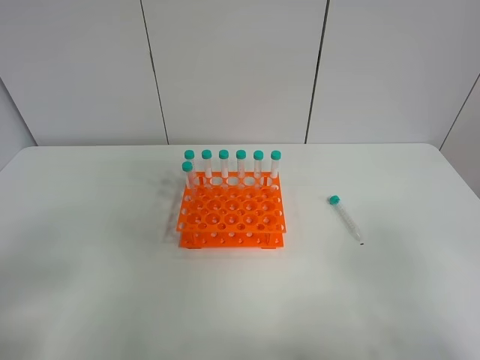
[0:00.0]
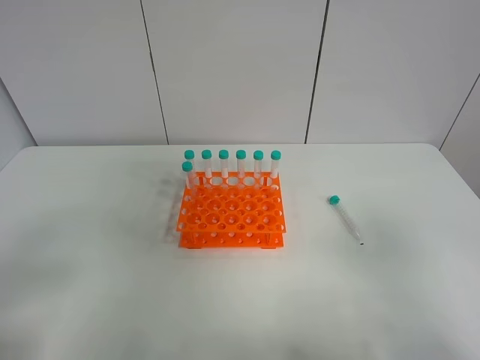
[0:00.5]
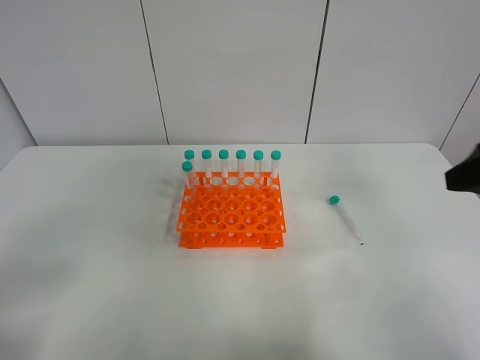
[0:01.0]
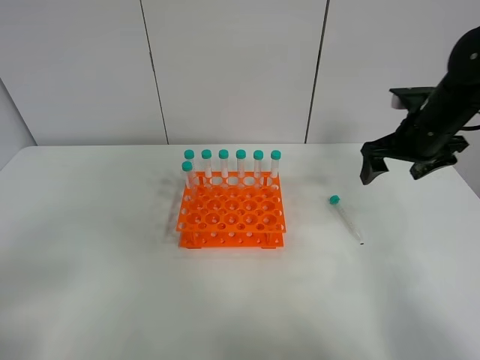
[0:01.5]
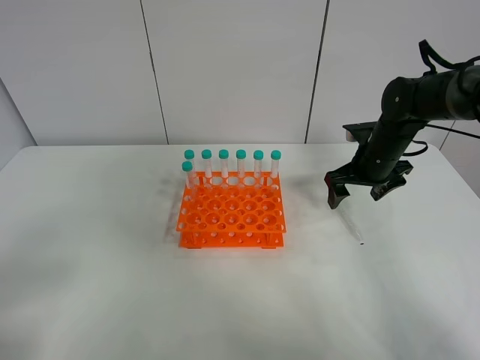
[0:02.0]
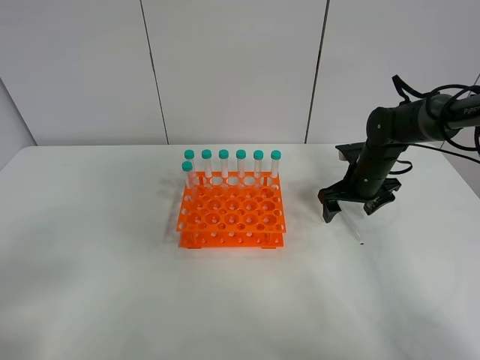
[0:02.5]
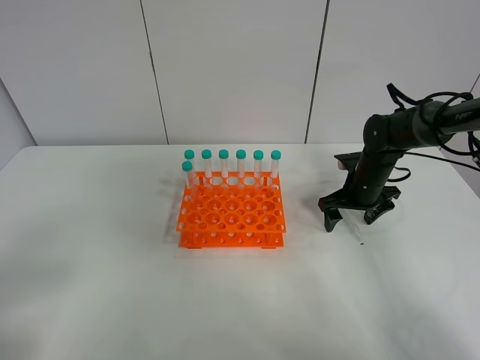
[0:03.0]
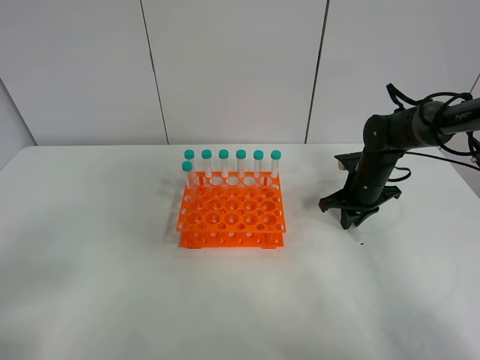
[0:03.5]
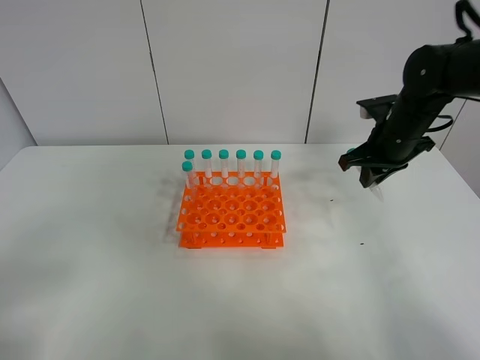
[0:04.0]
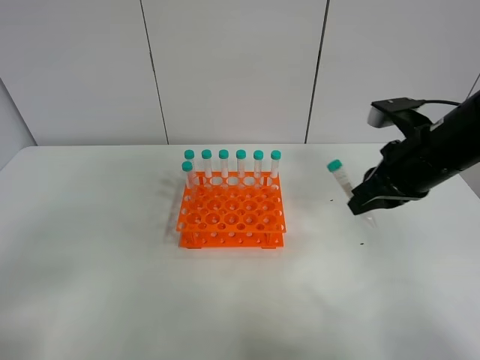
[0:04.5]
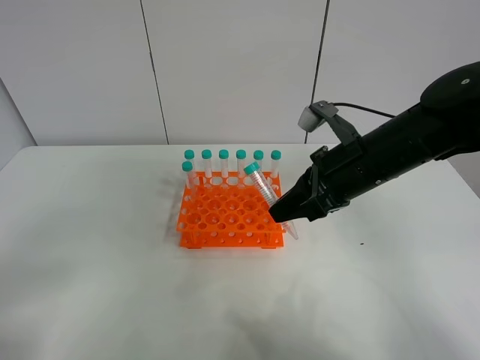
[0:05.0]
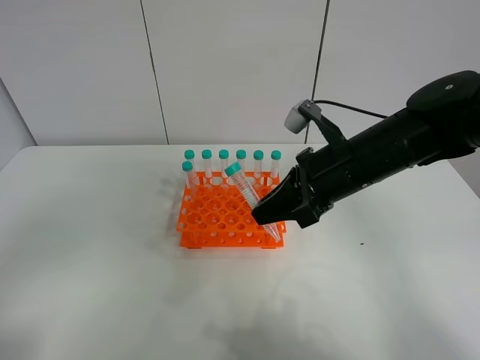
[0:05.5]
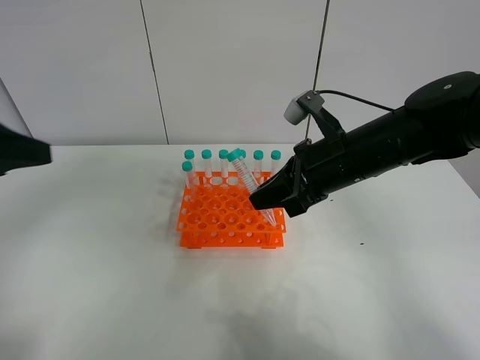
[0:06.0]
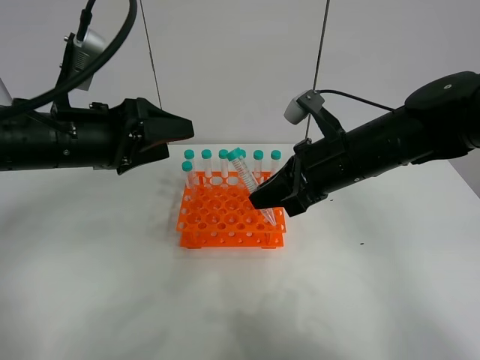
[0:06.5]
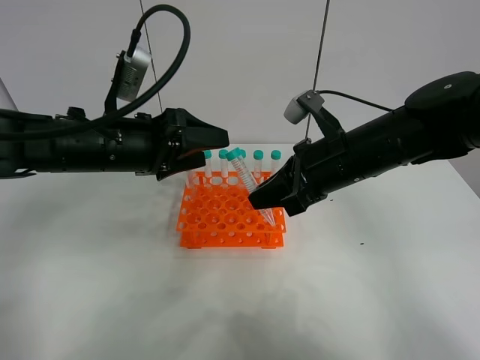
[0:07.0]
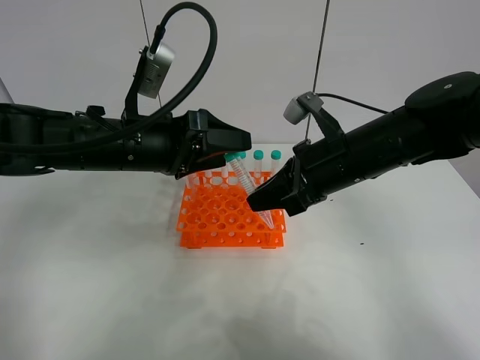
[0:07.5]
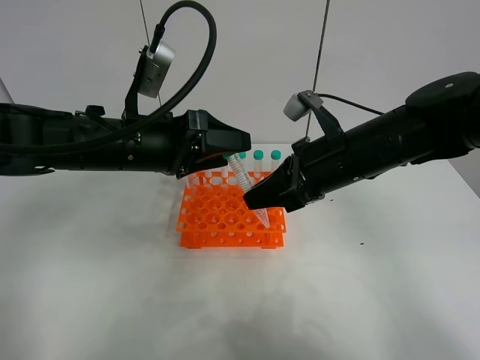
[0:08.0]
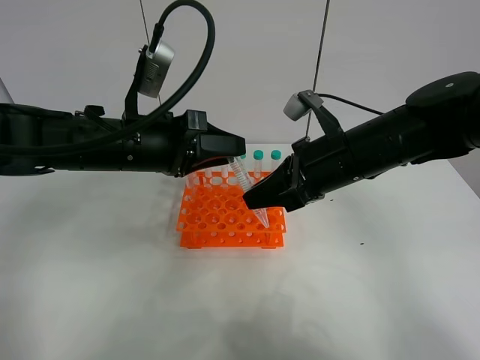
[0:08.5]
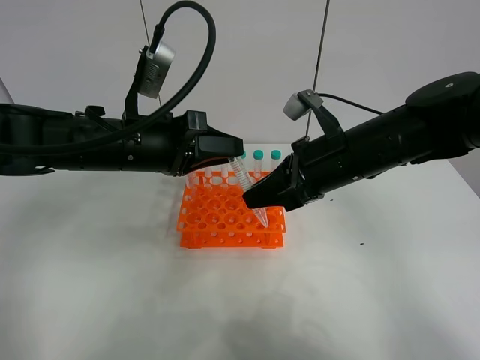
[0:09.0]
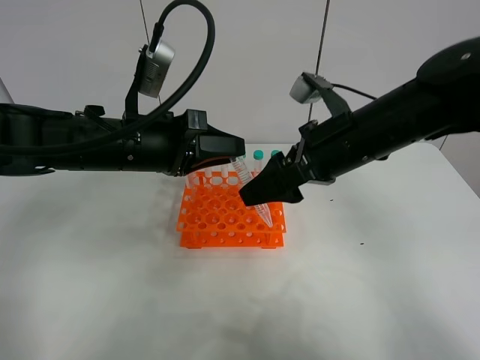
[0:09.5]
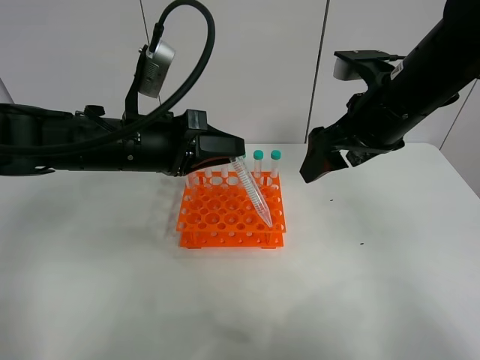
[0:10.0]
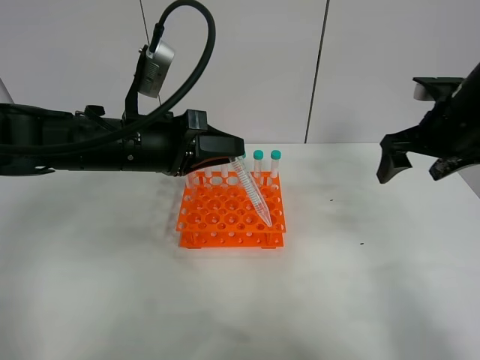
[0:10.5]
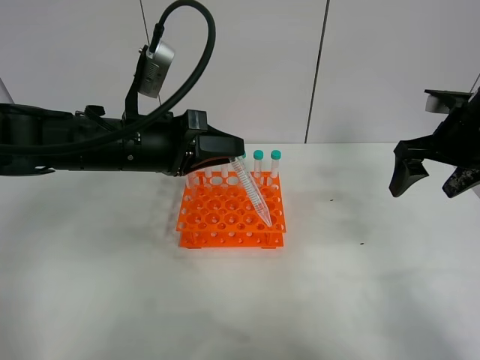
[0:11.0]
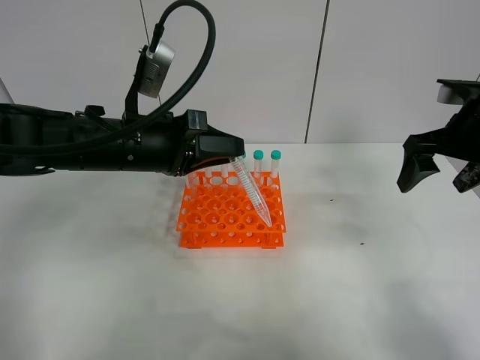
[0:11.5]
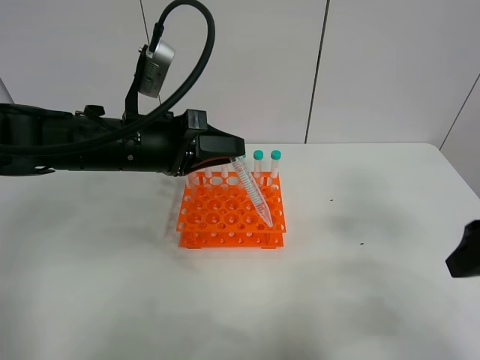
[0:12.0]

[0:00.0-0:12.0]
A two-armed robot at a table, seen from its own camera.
Task of the whole recording: Put the test tube on the table back onto the test tube rack.
Step, 0:00.0 to 0:03.0: Pick up the test tube with the right gripper.
Step, 0:03.5 to 0:09.0: Move the test tube from the right gripper to the left gripper.
0:00.0 to 0:02.0: The right gripper is displaced forward by approximately 40 cm.
0:02.0 to 0:04.0: The right gripper shifts approximately 5 cm upward, and closes.
0:04.0 to 0:06.0: The right gripper goes roughly 15 cm to the left and backward. The left gripper is displaced forward by some 15 cm.
0:06.0 to 0:08.0: The left gripper travels to the right, forward and downward by approximately 20 cm.
0:08.0 to 0:10.0: The right gripper goes about 5 cm upward, and opens up, while the left gripper closes up.
0:10.0 to 0:12.0: The right gripper heads backward and to the right, covering about 20 cm.

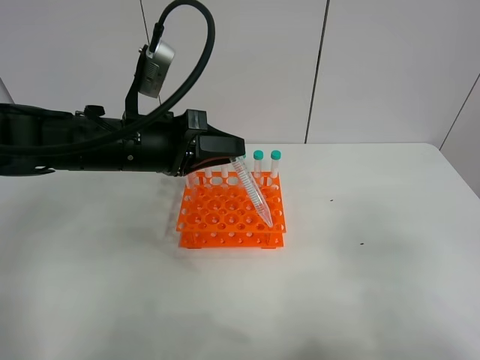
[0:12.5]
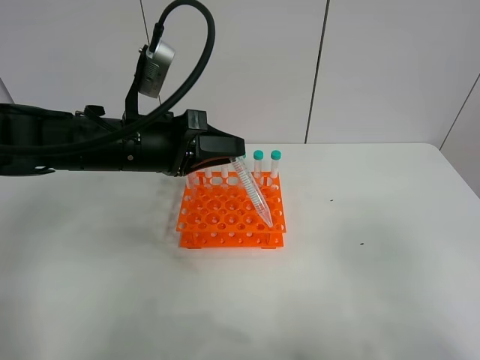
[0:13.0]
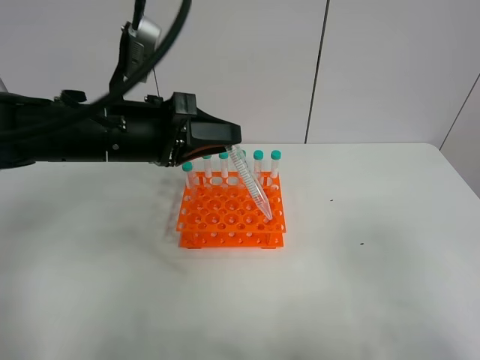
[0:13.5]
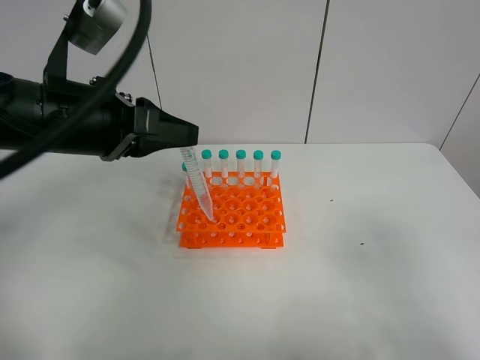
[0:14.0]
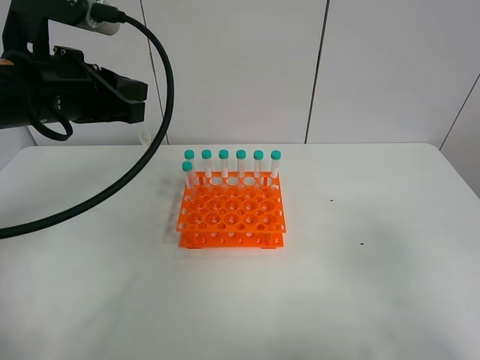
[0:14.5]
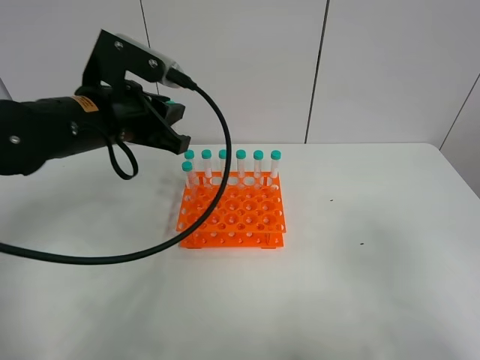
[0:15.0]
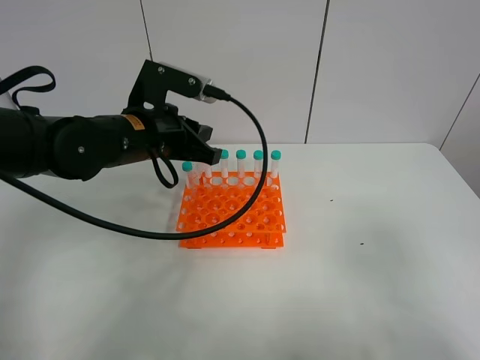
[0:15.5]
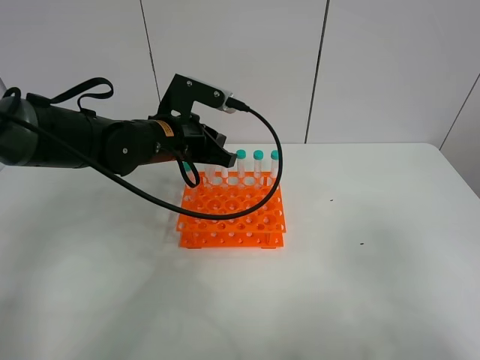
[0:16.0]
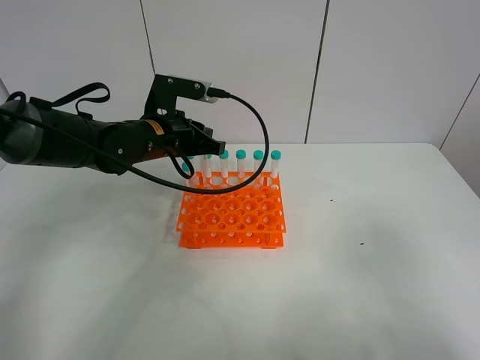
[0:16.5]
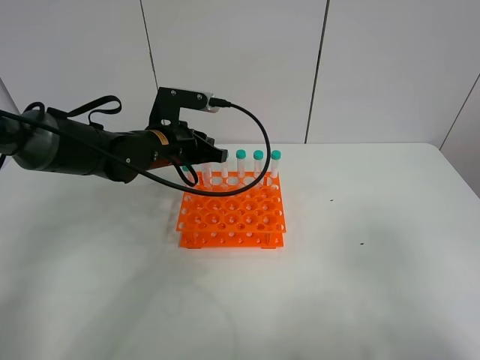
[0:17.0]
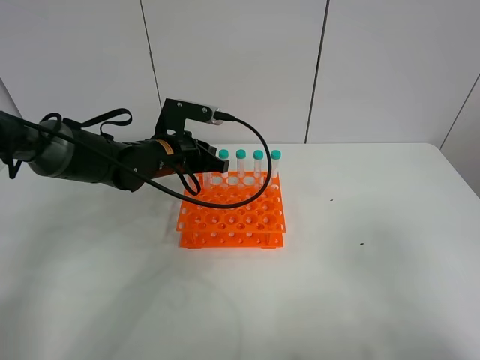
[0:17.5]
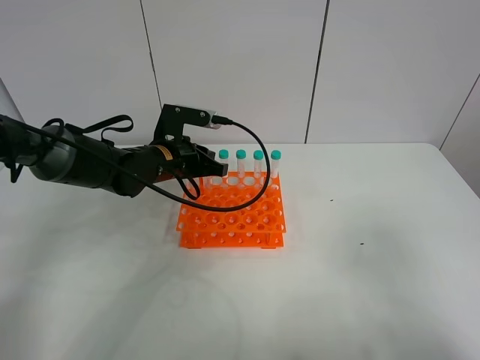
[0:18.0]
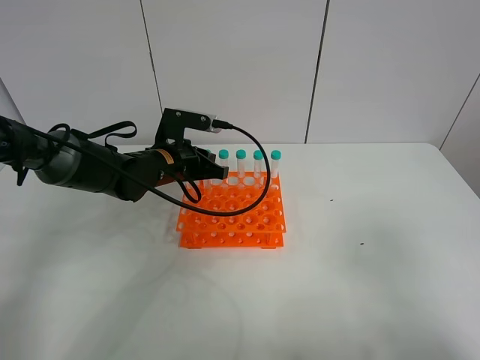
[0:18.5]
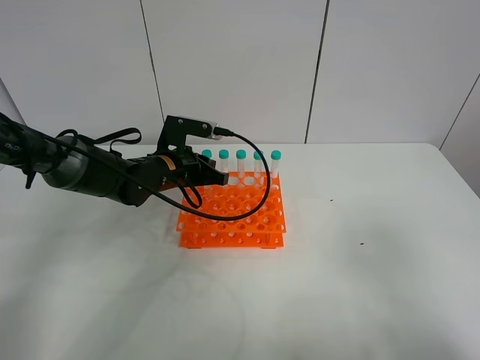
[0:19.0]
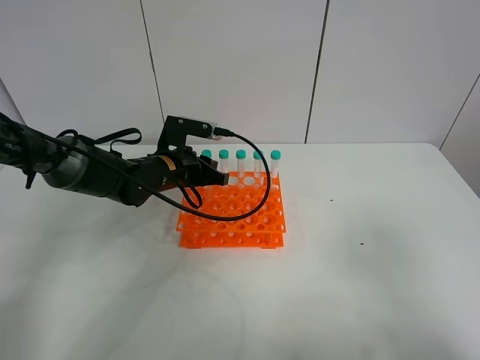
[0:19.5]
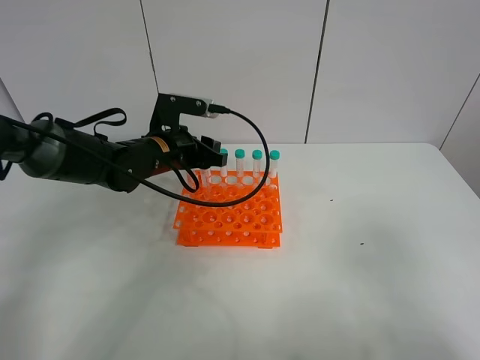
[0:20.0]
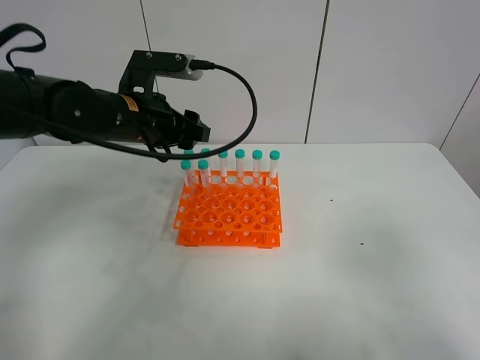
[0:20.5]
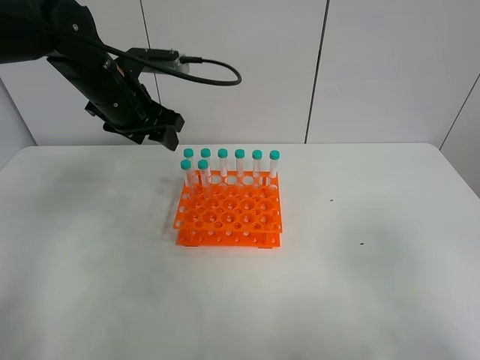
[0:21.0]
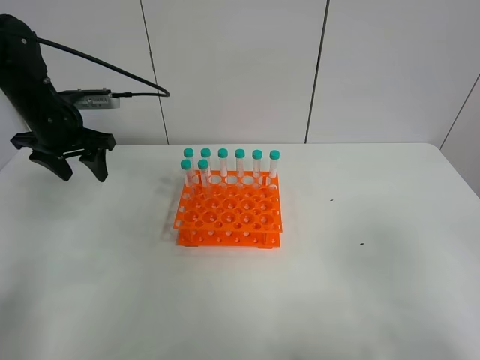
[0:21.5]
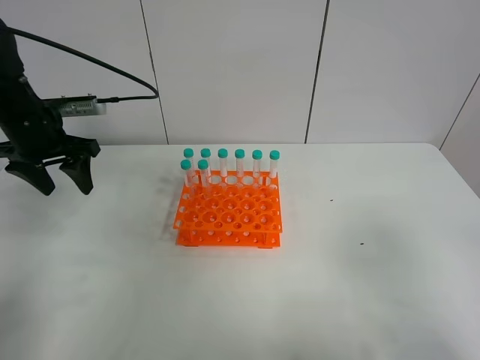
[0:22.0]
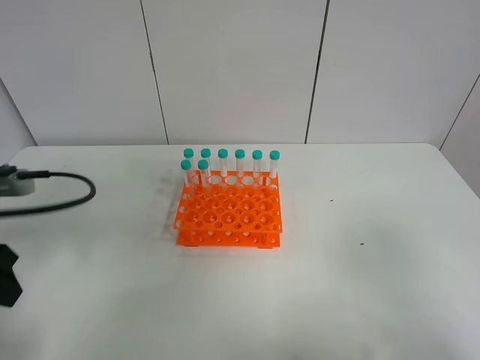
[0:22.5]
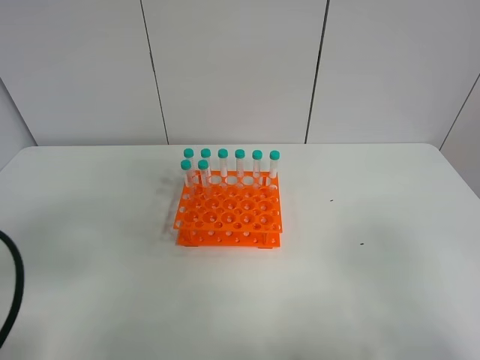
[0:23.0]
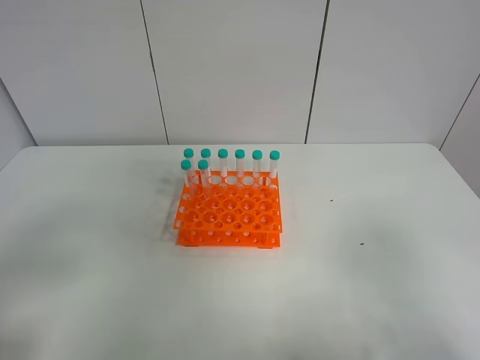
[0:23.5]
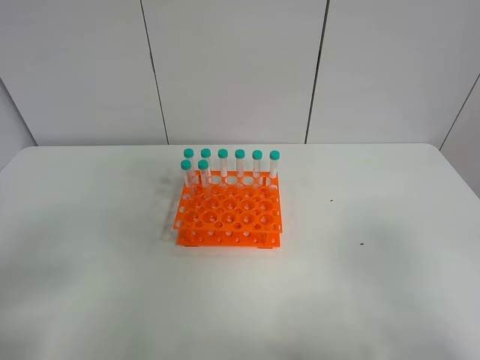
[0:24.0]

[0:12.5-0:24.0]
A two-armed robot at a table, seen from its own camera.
Task of the whole recording: Put the test tube on the table back onto the test tube rack.
Step, 0:12.5 to 0:19.5: Place the test tube on the test tube rack with the left gripper.
0:12.5 to 0:14.5: The left gripper goes some 10 cm upward and to the left.
0:14.5 to 0:16.5: The left gripper shifts approximately 20 cm downward, forward and to the right.
0:16.5 to 0:18.5: The left gripper heads downward, covering roughly 5 cm.
0:18.5 to 0:20.0: The left gripper opens.
0:20.0 to 0:22.0: The left gripper heads to the left, covering about 15 cm.
0:22.0 to 0:24.0: The left gripper travels backward by some 35 cm.

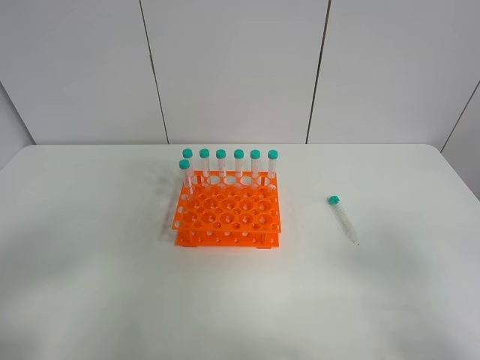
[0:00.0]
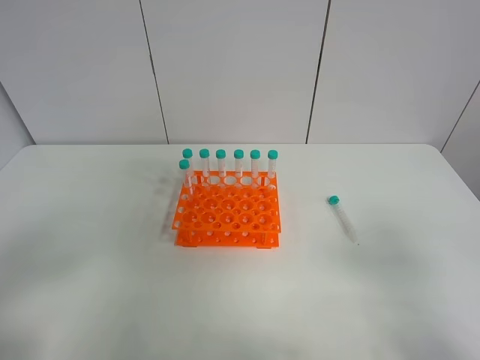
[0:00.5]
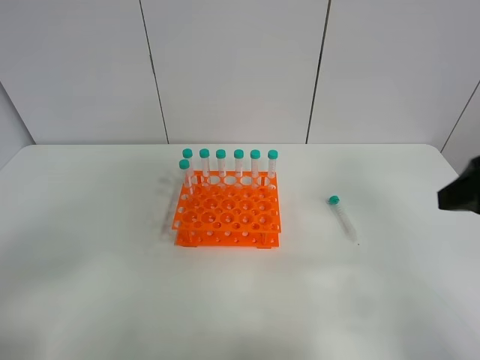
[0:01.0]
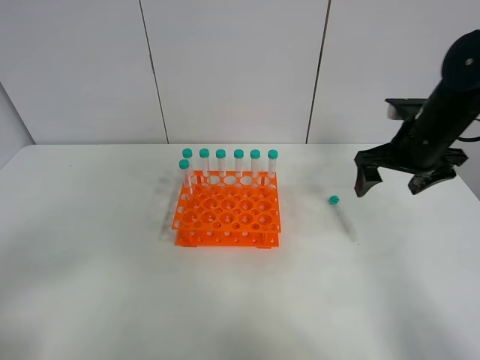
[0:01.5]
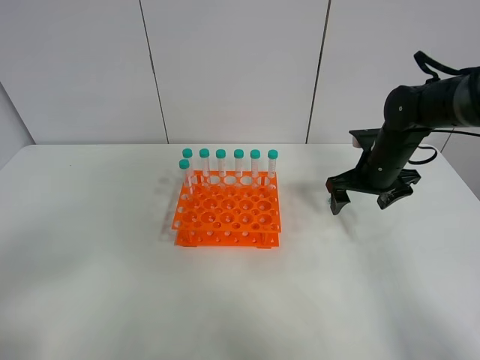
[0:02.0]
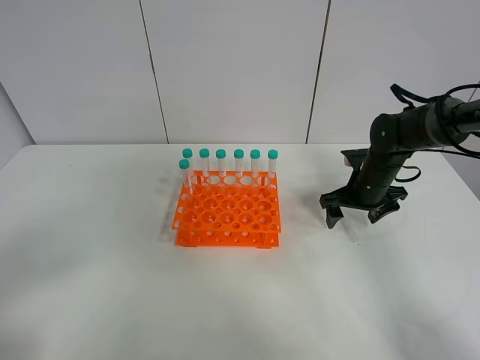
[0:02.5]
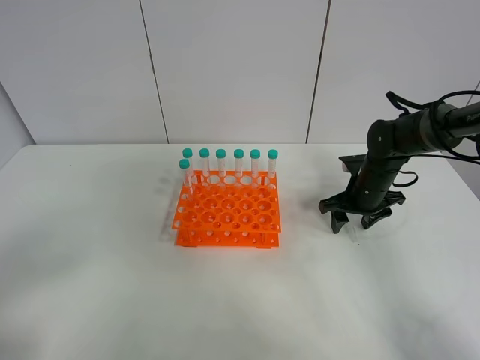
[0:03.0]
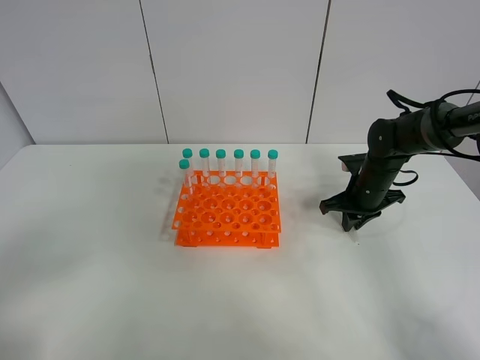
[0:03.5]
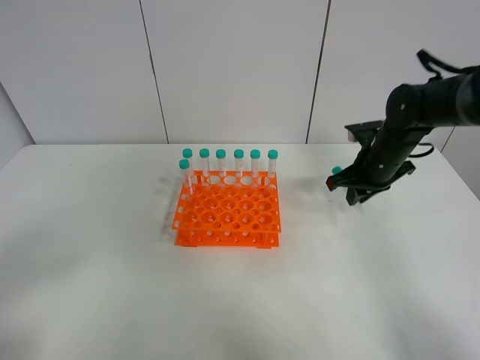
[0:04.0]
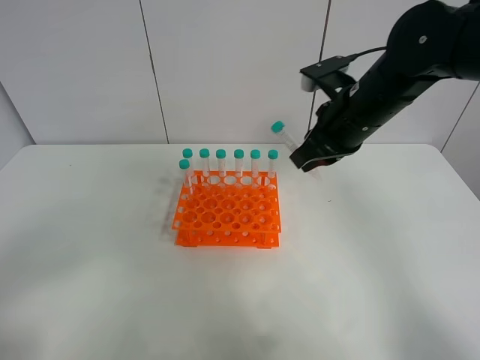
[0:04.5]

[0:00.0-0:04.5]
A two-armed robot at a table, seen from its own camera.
Task of the whole recording: Put the test tube on the table back onto the test tube rack.
Step, 0:00.0 to 0:03.5: Pick up the test tube with the right gripper.
0:00.0 to 0:02.0: The right gripper goes about 40 cm forward.
0:02.0 to 0:04.5: The right gripper moves upward, to the left and backward, roughly 15 cm, and closes its fingers.
